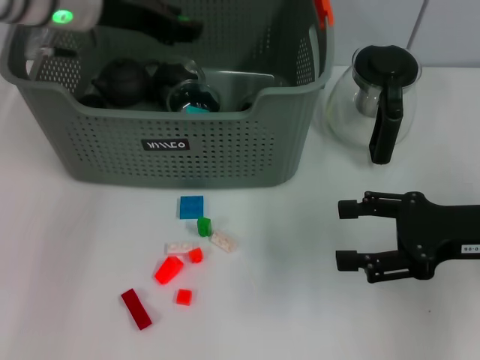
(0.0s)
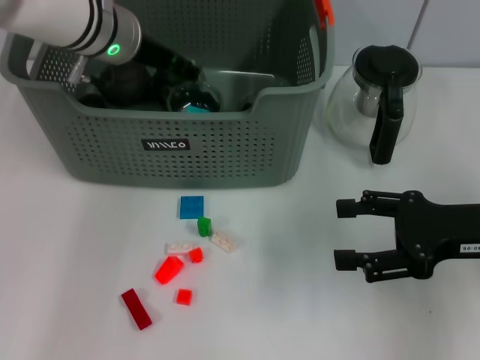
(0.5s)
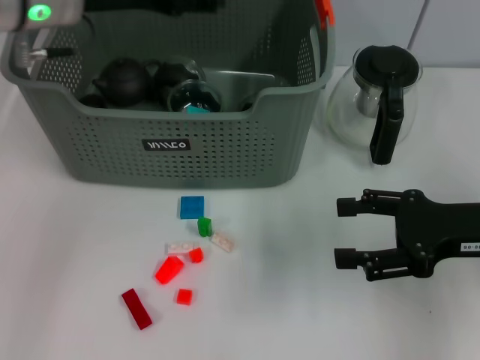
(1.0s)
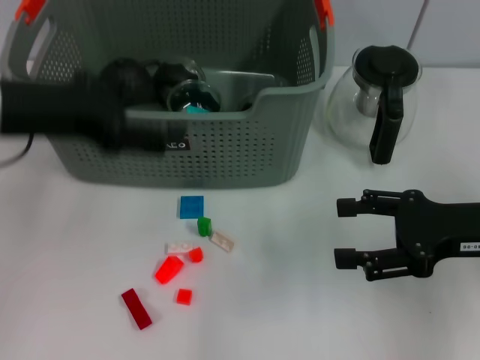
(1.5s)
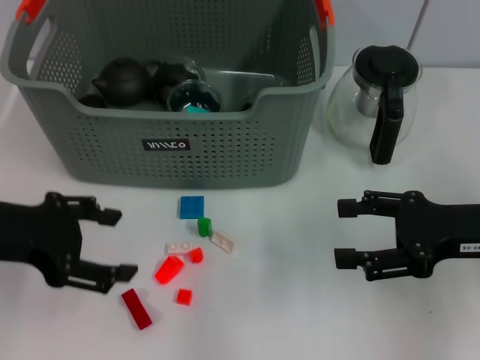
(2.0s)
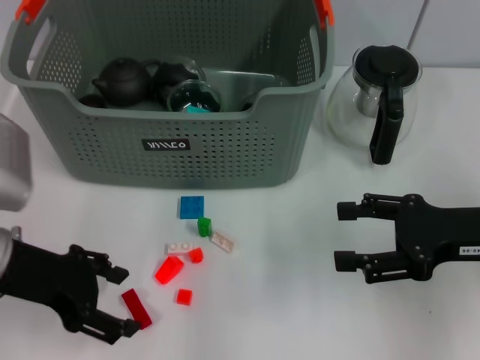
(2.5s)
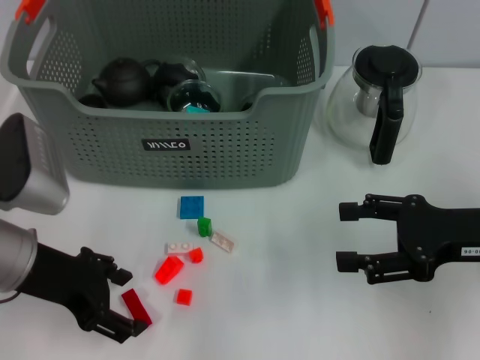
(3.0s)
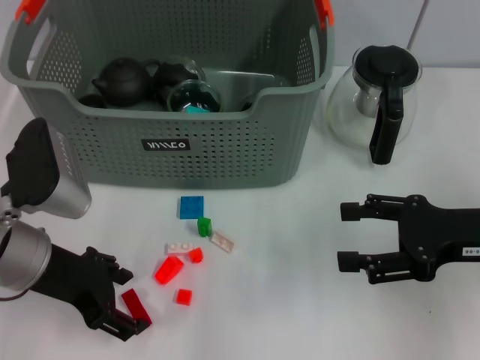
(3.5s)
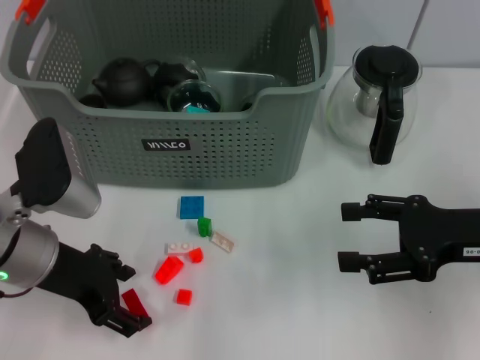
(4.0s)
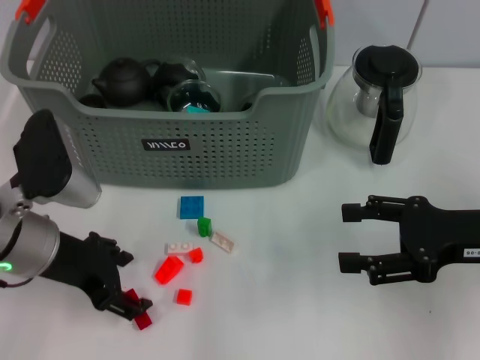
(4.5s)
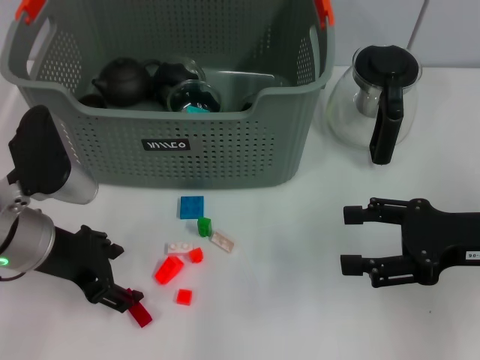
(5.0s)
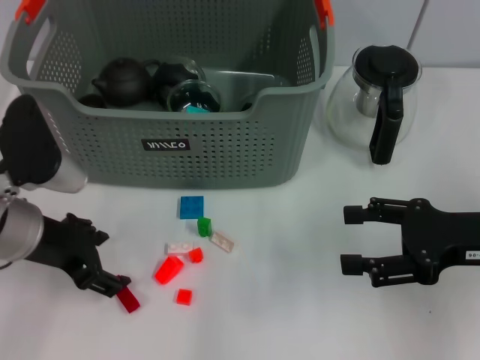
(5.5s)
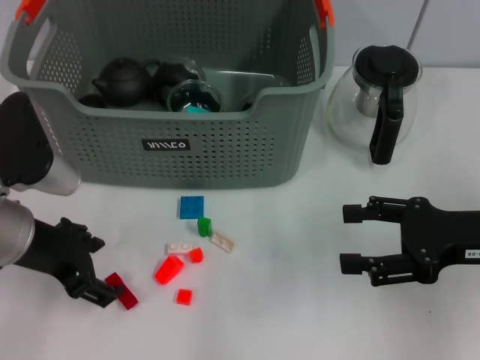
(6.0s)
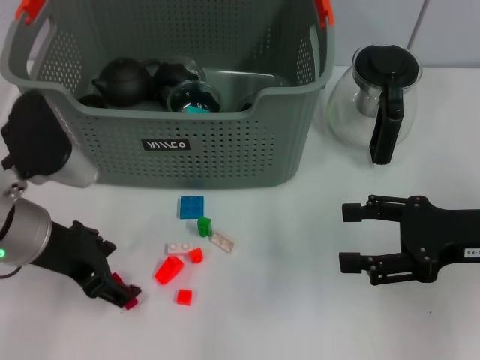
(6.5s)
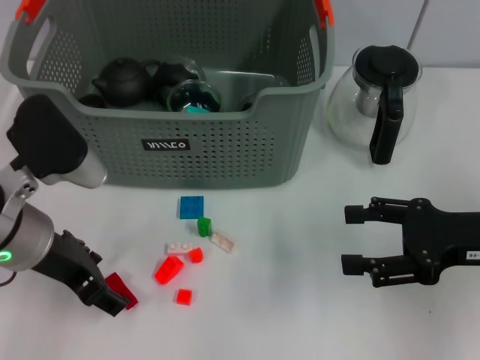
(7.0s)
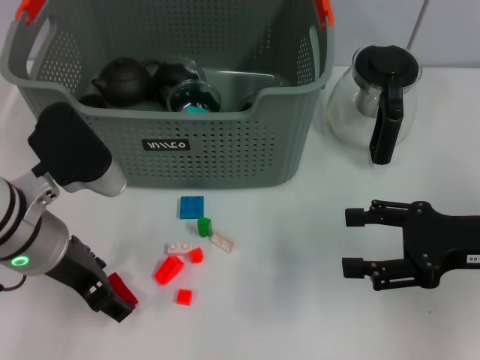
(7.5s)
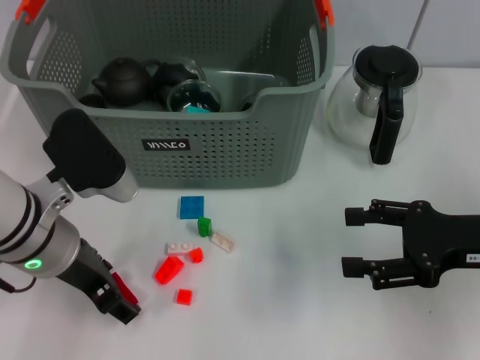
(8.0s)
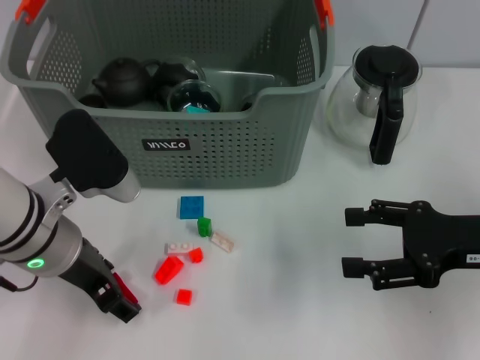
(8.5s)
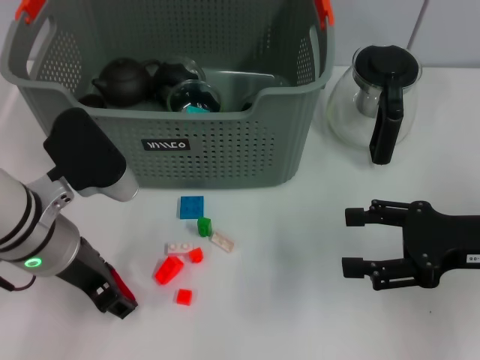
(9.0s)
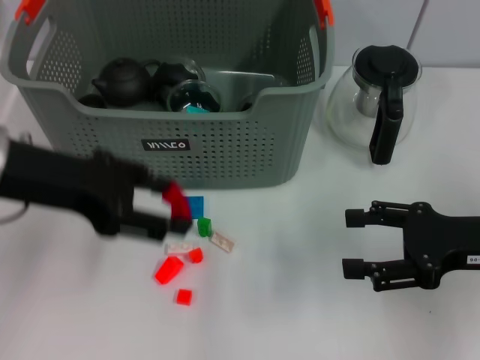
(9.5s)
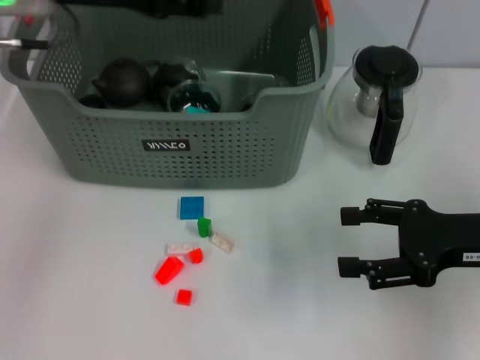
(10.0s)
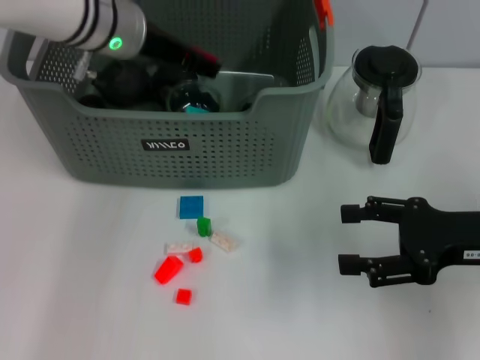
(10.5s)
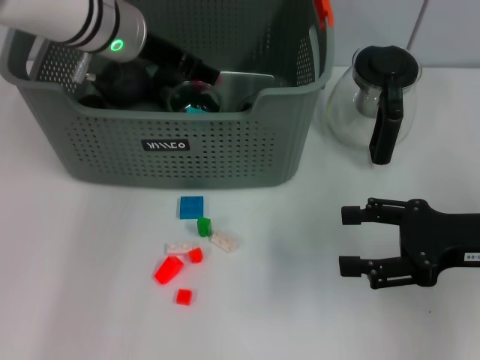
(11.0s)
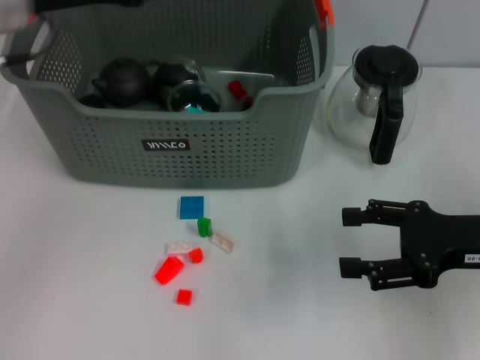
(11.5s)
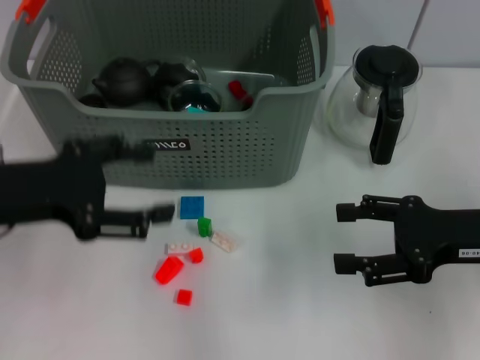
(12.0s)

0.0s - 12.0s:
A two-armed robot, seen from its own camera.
Task of the whole recording: pick up the teacup on the table and place it into the storage bin, pick up the block on the table and place it into the storage bin.
Step, 1.0s - 9.0s: Grasp the red block with left gripper.
Step, 9.5s - 11.0s: Place the red block in the storage box with left gripper.
0.0s - 2.0s: The left gripper goes approximately 20 cm backward and to the left, and opens up.
2.0s - 4.0s: The left gripper is displaced downward and to the right by roughly 10 cm.
4.0s - 8.0s: The grippers stay close to where they were, moving slightly.
8.0s - 10.0s: The left gripper is displaced upward and forward by roughly 20 cm.
10.0s - 12.0s: The left gripper shifts some 15 cm backward, downward and to the left.

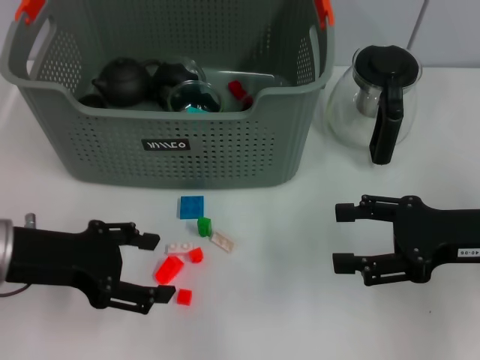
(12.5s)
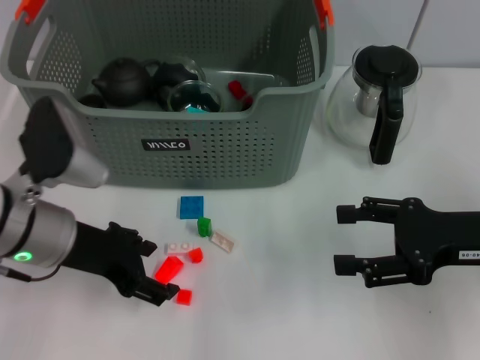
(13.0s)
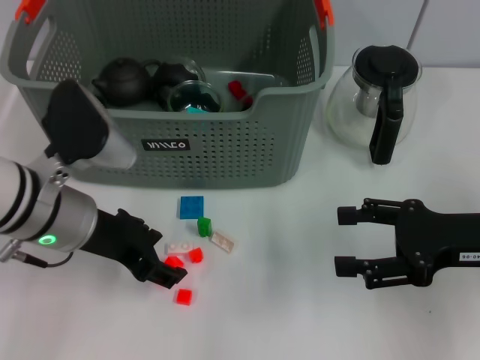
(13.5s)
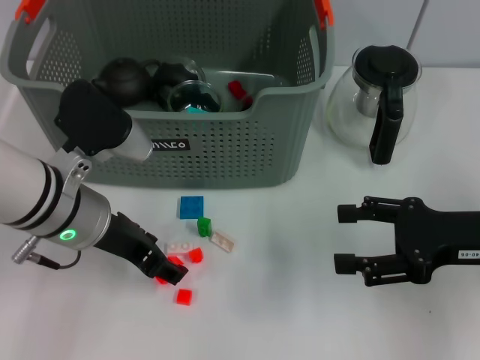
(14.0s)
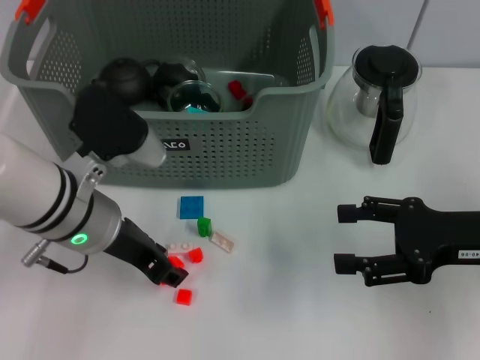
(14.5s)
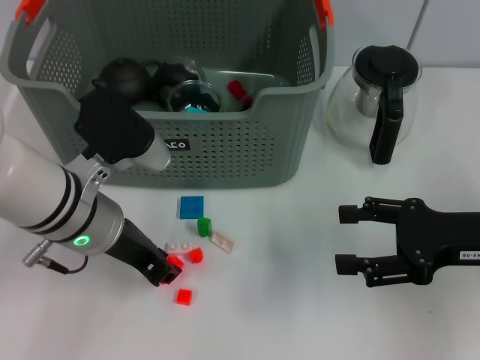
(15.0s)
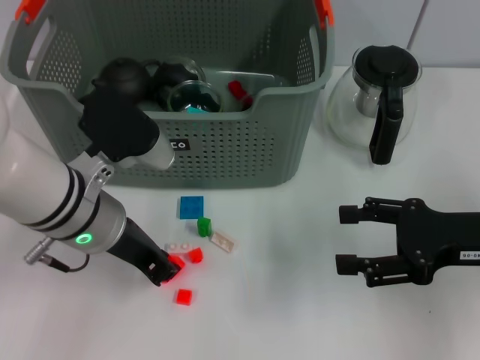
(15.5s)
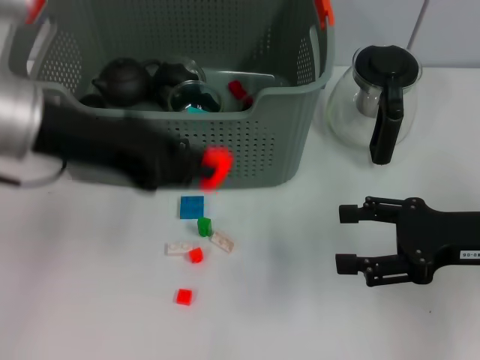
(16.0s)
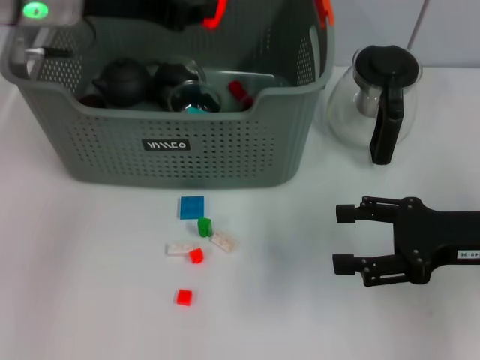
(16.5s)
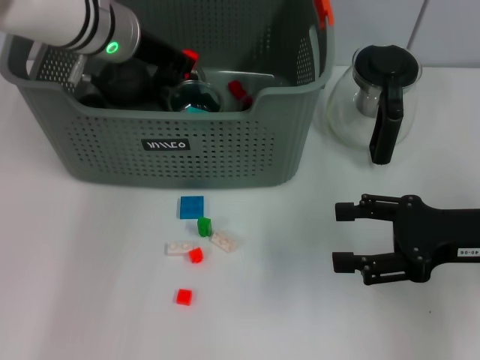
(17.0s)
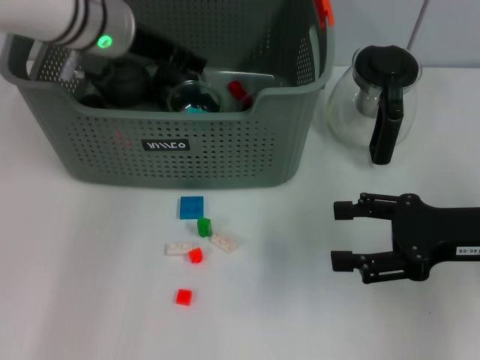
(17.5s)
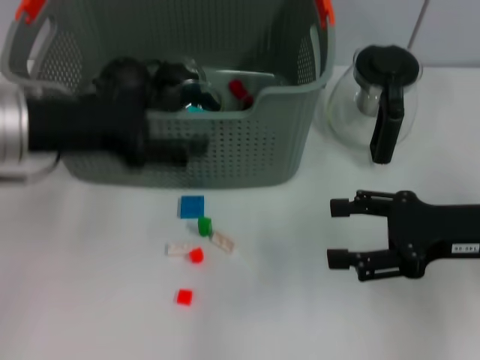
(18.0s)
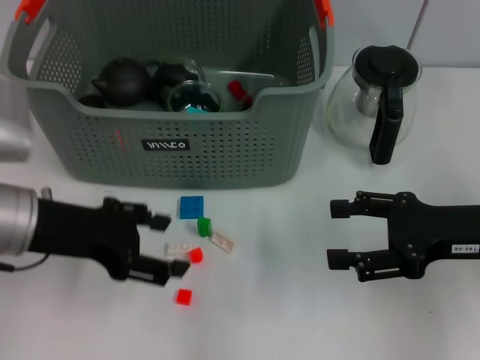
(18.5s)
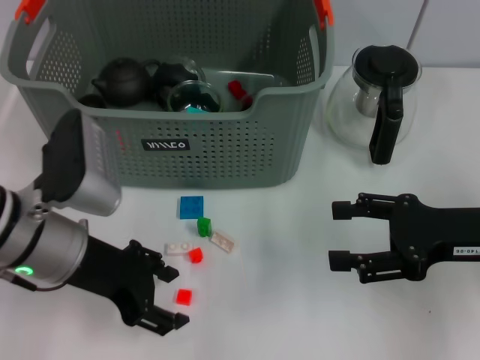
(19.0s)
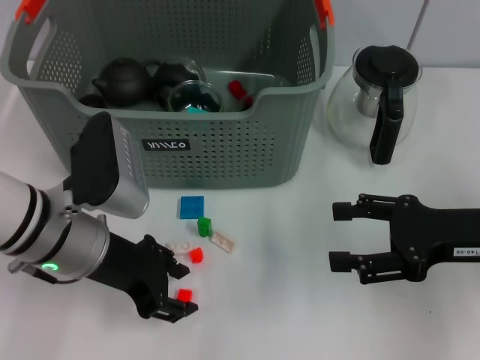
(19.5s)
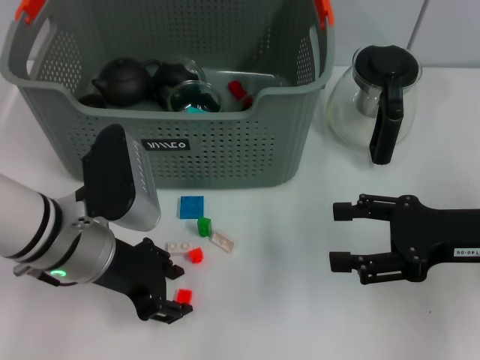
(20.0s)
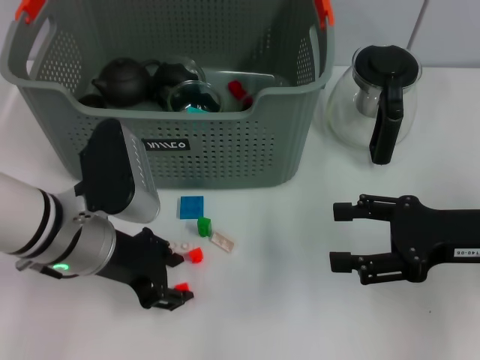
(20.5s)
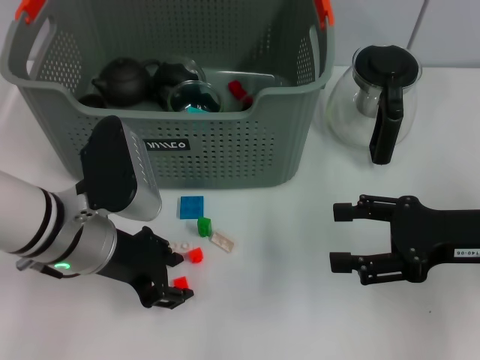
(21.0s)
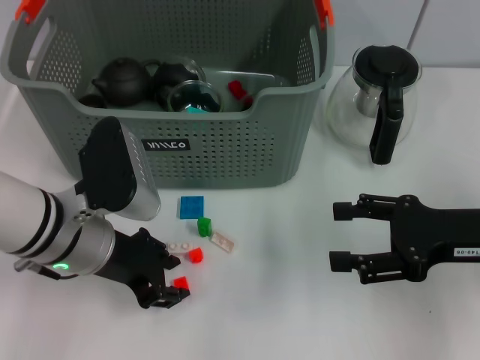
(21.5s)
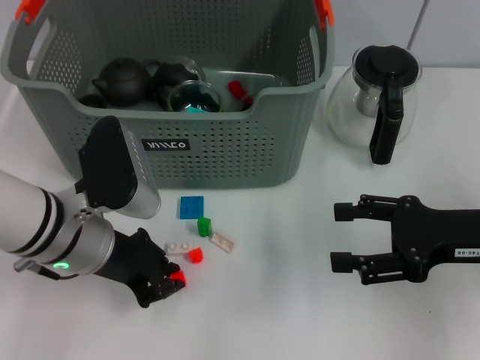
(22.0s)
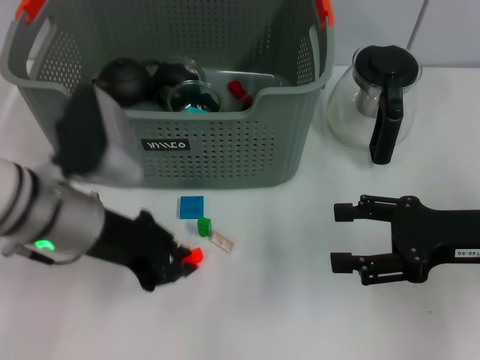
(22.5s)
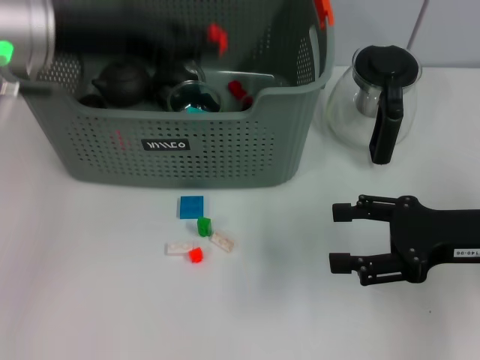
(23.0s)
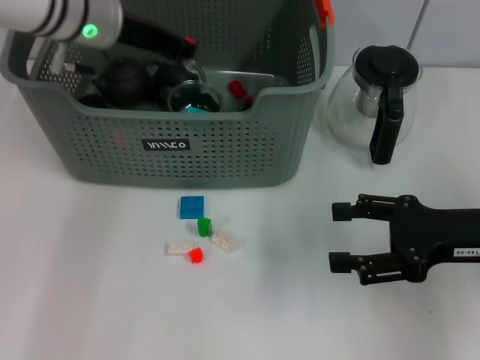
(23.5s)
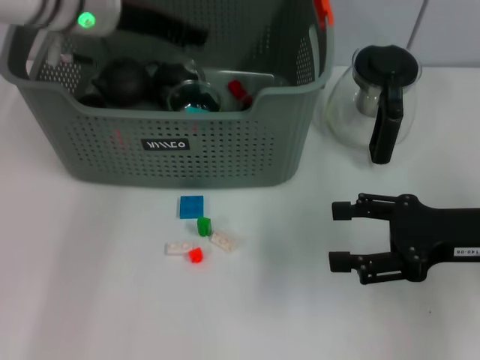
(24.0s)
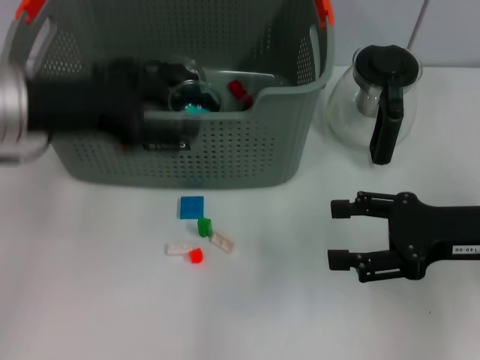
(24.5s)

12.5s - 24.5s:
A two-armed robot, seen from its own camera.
Task of the whole recording: pick up the teacup on the table and place it into the storage bin, pick up the block on the table and place it into the storage bin.
Step, 12.5s - 15.5s: Grasp the orange block with left gripper.
Step, 16.0s - 17.5s: Place the orange block in the storage box with left gripper.
Step, 18.0s - 22.0s: Grasp the orange block with left gripper.
Step, 22.5s - 24.0s: Place the orange block in the storage box with left gripper.
12.5s - 14.5s: The left gripper heads to the right, covering approximately 10 cm.
14.5s - 16.5s: The left gripper heads upward and forward, covering about 15 cm, and closes up.
16.5s - 18.5s: The left gripper shifts about 15 cm backward and downward, and opens.
18.5s - 20.5s: The left gripper shifts some 5 cm to the right.
20.5s - 22.5s: The left gripper closes up.
22.5s - 24.5s: The left gripper travels upward by some 5 cm, moves roughly 15 cm forward and comes back, and opens.

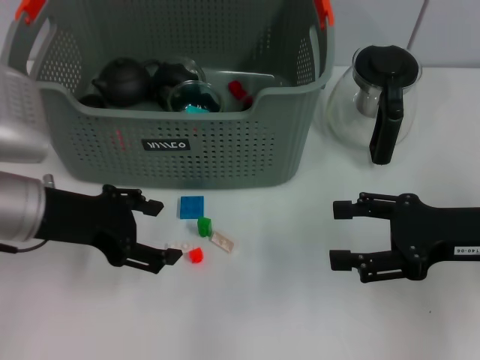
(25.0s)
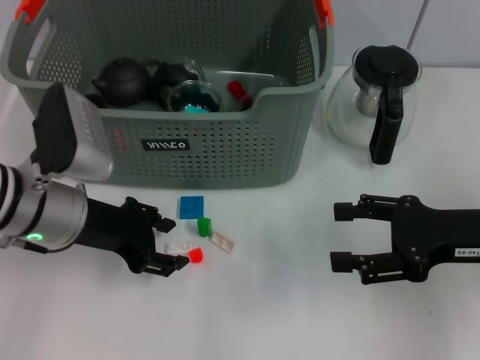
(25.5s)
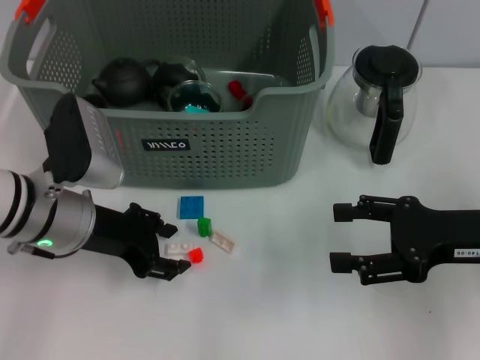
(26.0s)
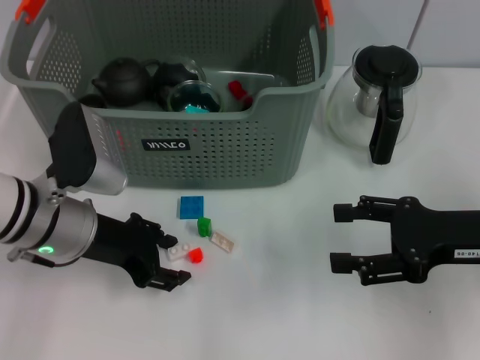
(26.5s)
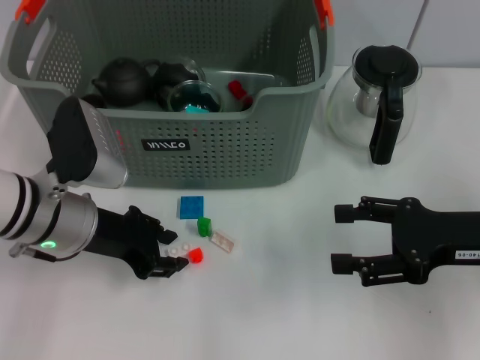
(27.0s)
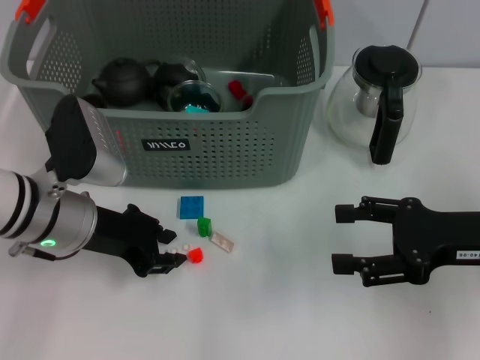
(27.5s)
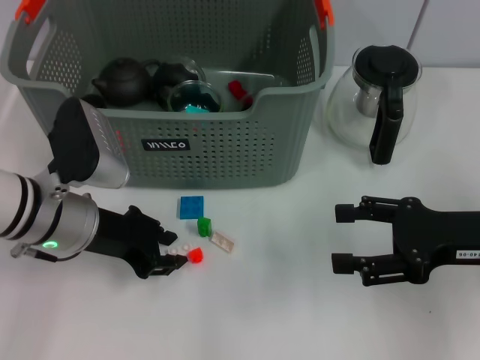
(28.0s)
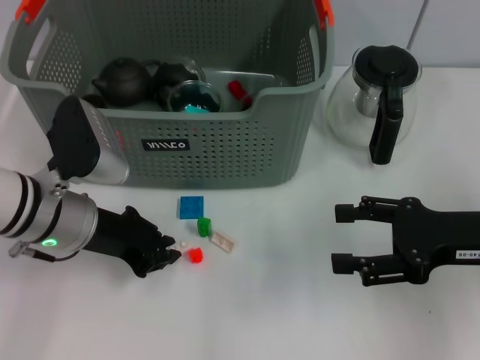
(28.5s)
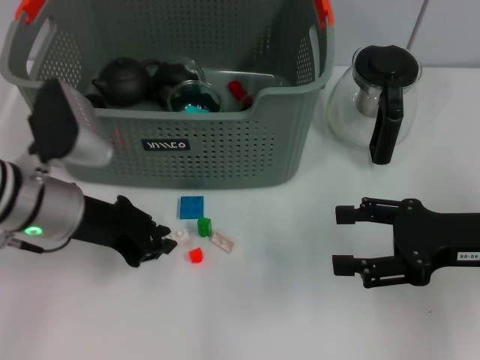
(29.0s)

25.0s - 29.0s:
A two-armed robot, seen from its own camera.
Task of the whole recording: pick up the teacup on the table and place it into the storage bin, pick up the block on the table and place it into the storage bin.
25.0s - 27.0s: The left gripper shifts by roughly 5 cm.
27.0s - 29.0s: The left gripper closes up.
